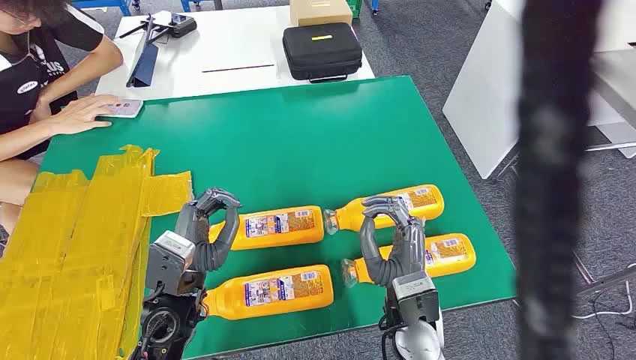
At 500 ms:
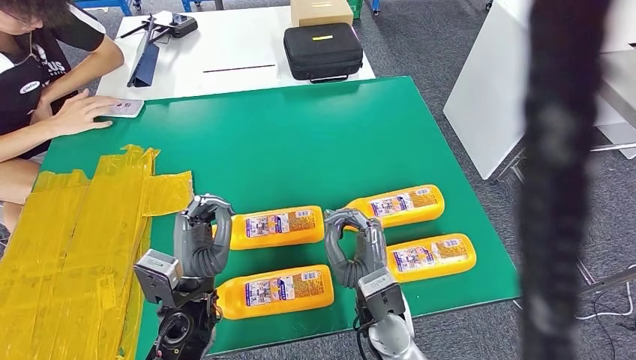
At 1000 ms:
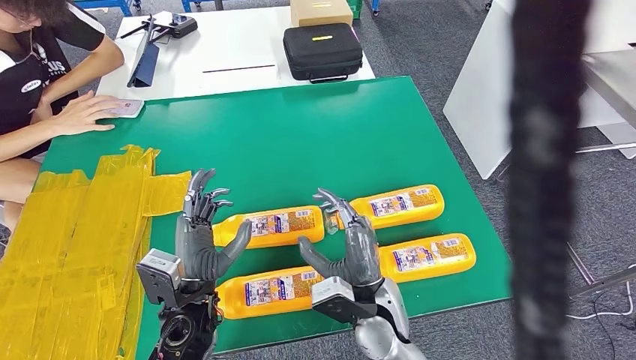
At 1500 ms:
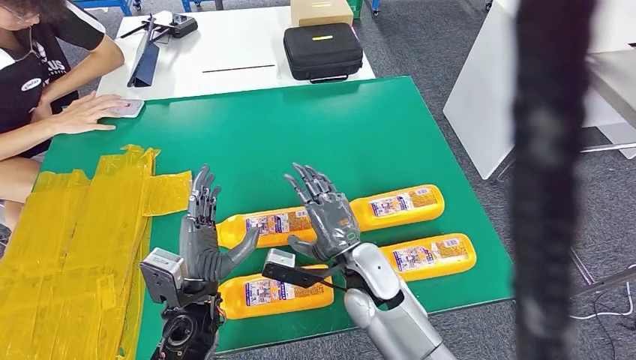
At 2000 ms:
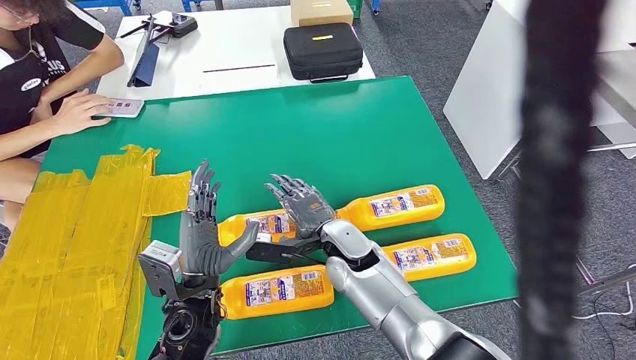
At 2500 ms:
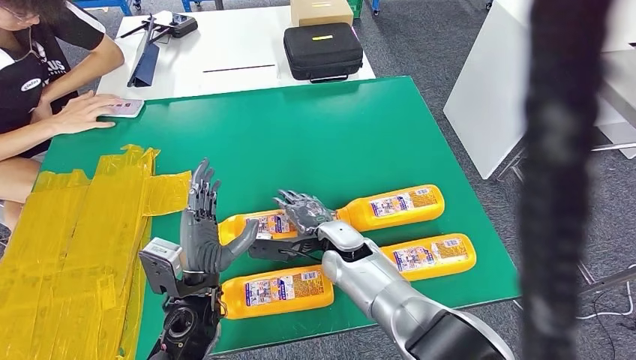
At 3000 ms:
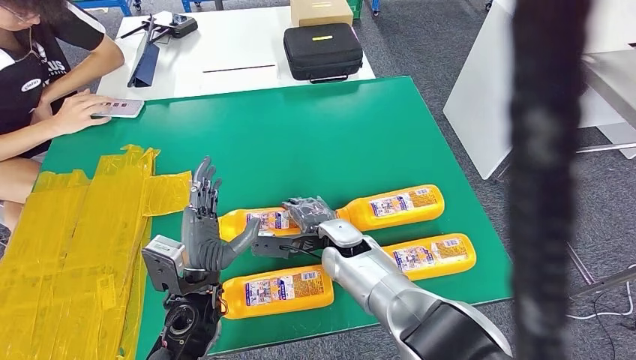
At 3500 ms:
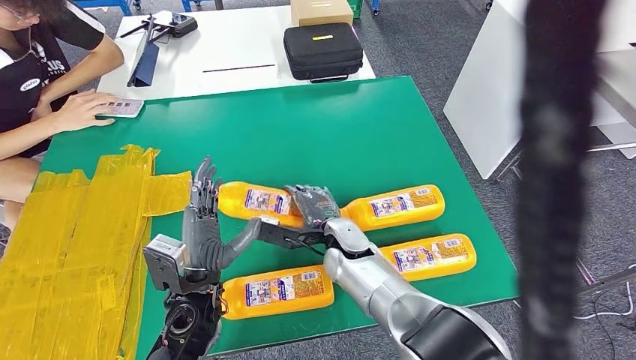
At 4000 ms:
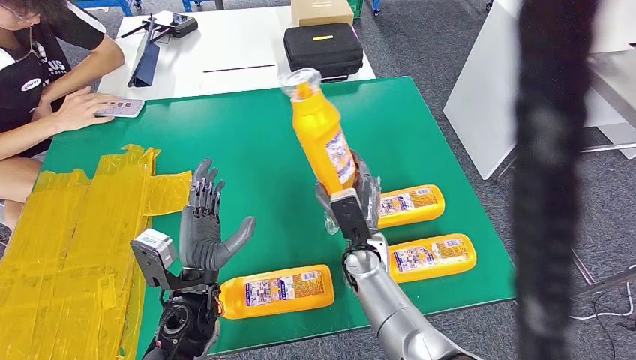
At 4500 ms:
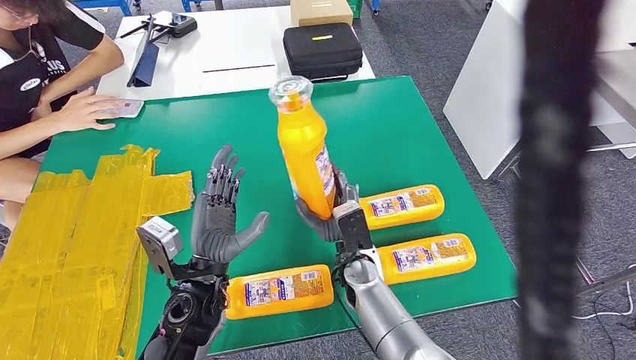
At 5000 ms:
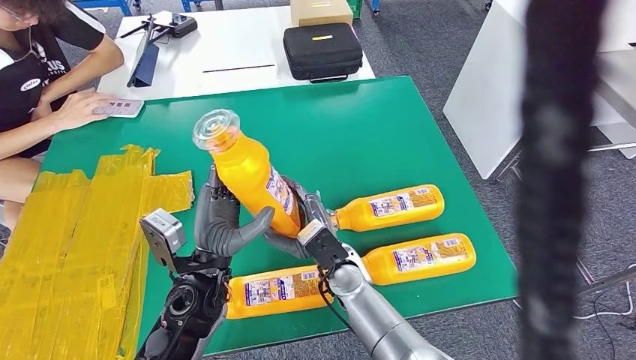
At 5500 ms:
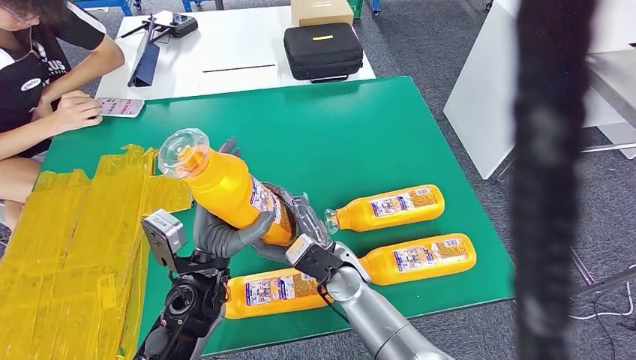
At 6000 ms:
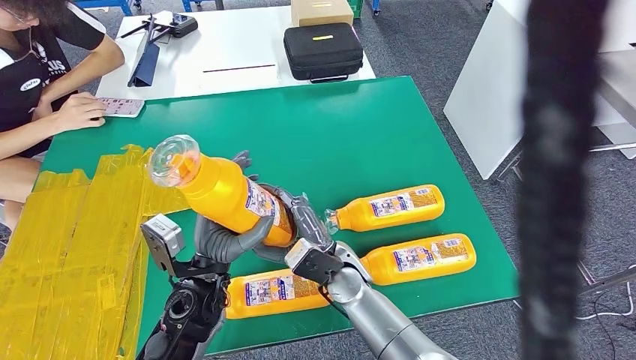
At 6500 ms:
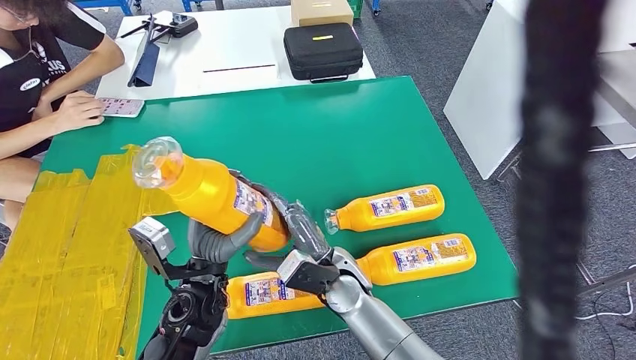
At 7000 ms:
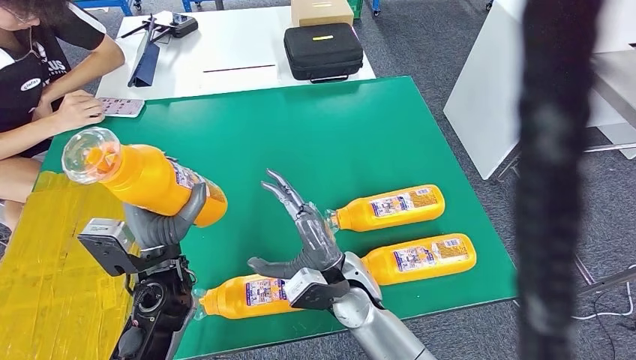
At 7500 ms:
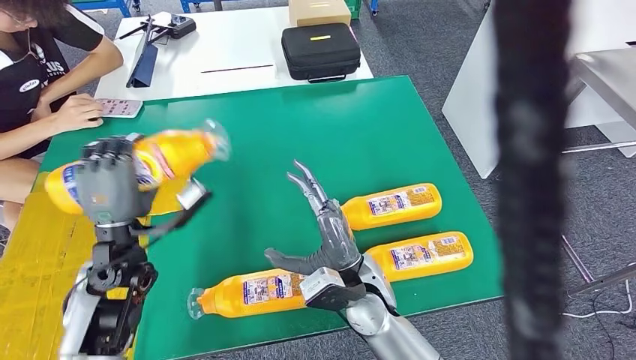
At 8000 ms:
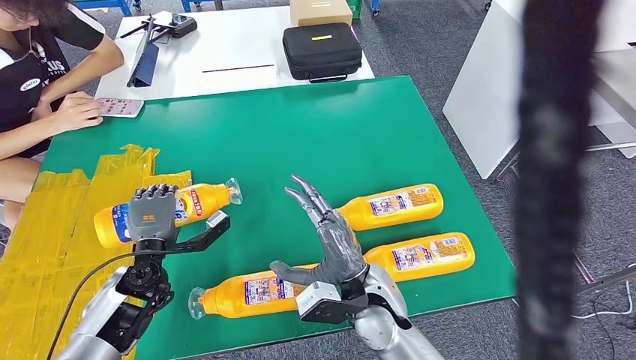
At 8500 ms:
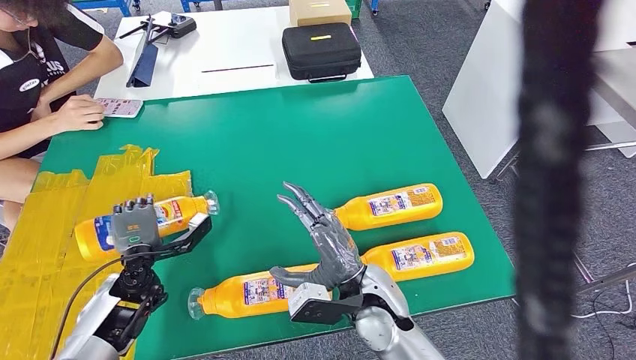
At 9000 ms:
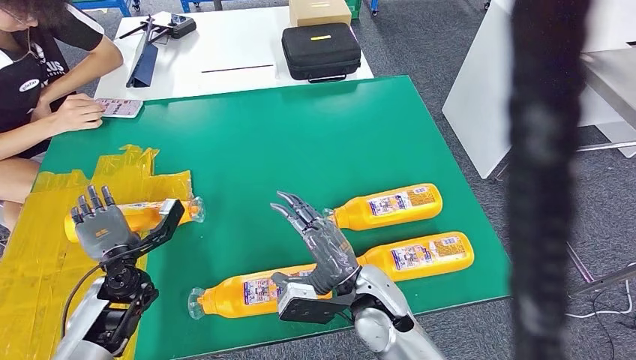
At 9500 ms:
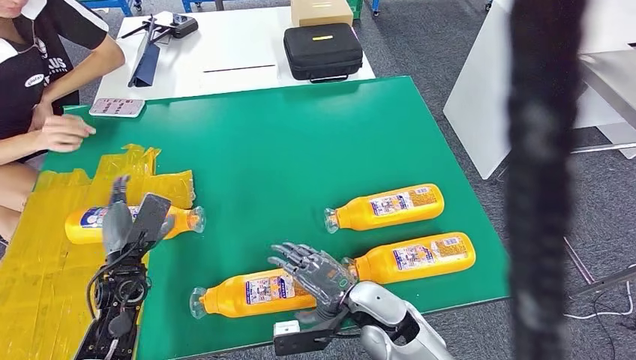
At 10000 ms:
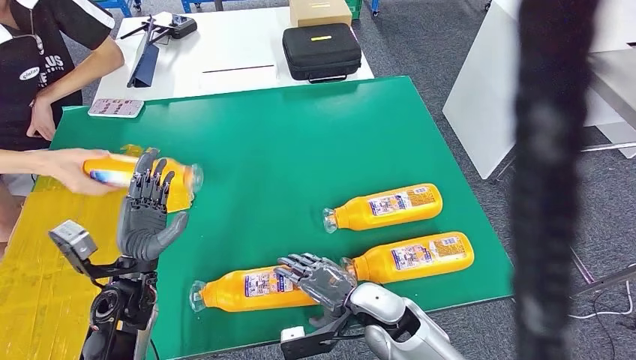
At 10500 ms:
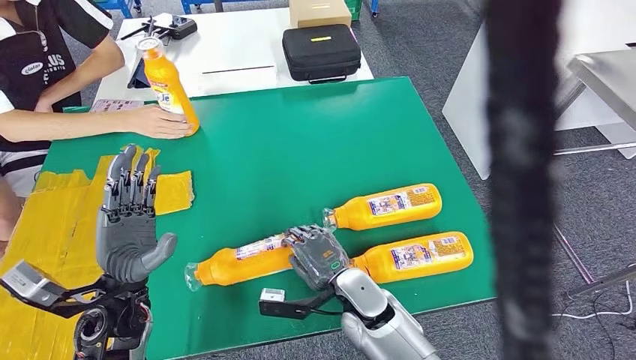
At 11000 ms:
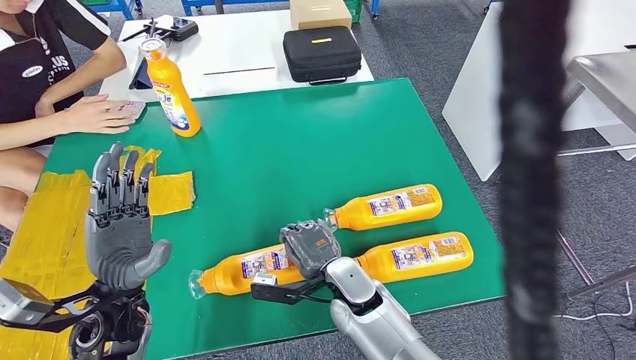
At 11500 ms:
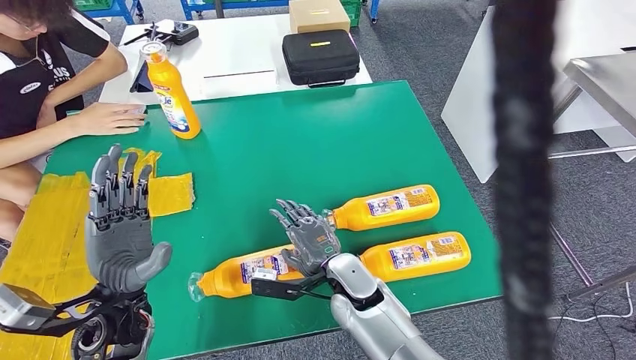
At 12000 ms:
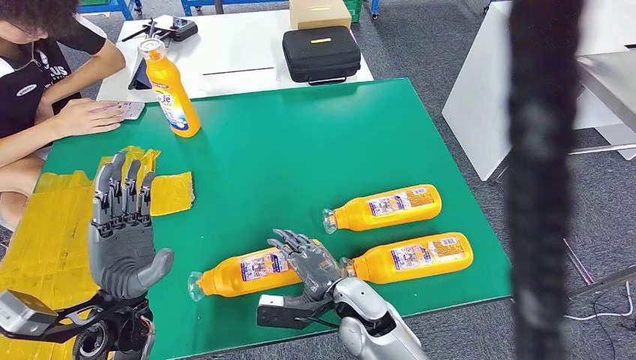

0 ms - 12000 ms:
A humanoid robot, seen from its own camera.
Step, 0 ms - 4000 ms: Take the fast-moving consumer goods bottle from the table.
Step, 4500 ms - 8500 ms: Flip the fast-moving consumer goods bottle to the front side.
2000 ms - 4000 ms: The right hand ends up some 5 cm from where it was.
4000 ms - 6000 ms: The right hand moves to the left, some 5 cm.
6000 ms - 8000 ms: The right hand moves backward, approximately 5 cm; the left hand is displaced to the left, forward and downward by some 15 cm.

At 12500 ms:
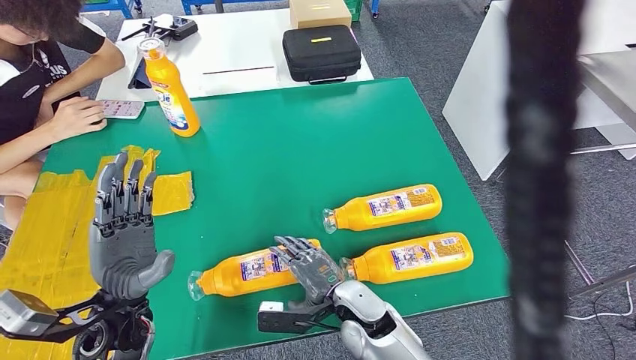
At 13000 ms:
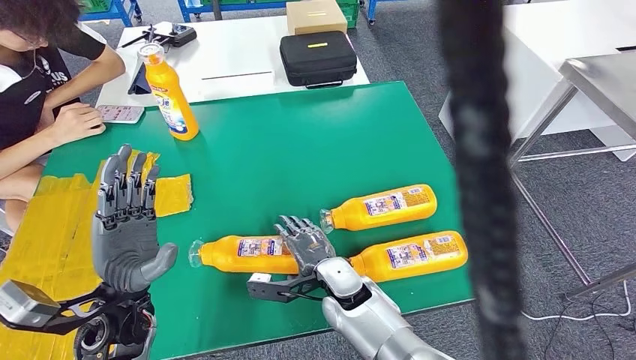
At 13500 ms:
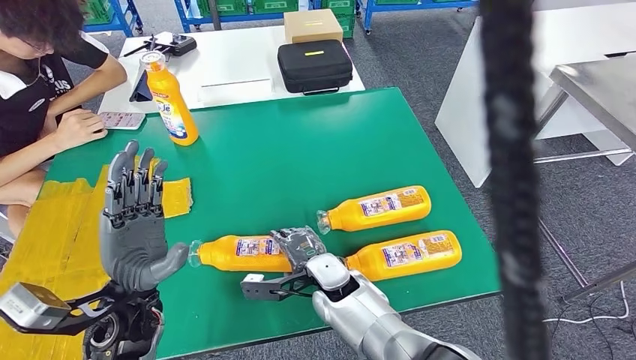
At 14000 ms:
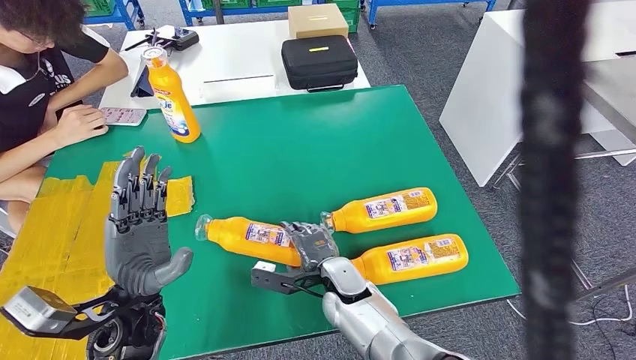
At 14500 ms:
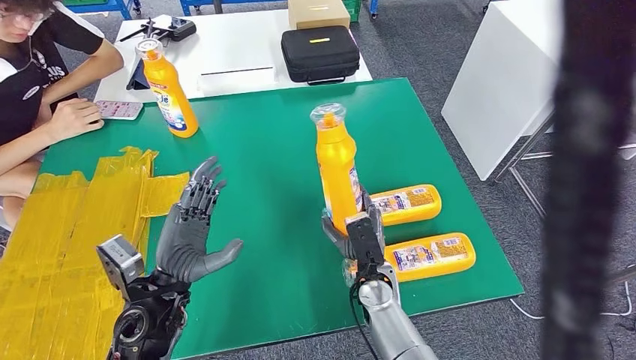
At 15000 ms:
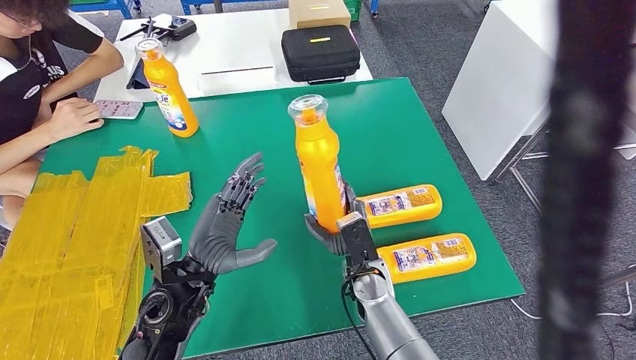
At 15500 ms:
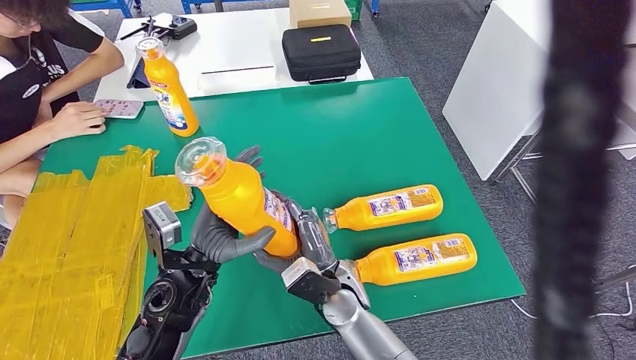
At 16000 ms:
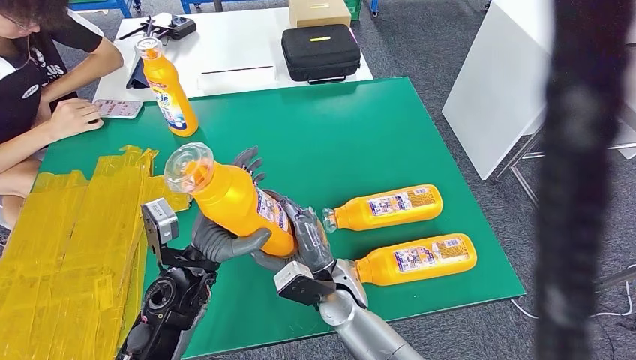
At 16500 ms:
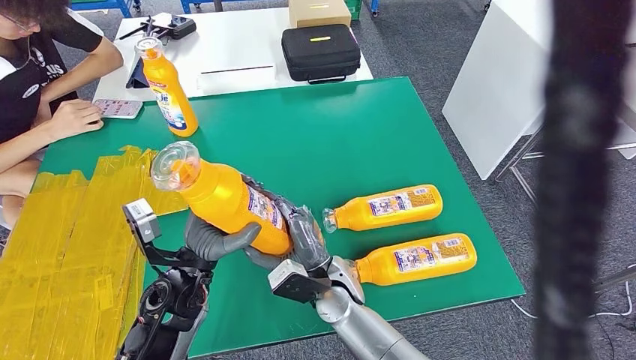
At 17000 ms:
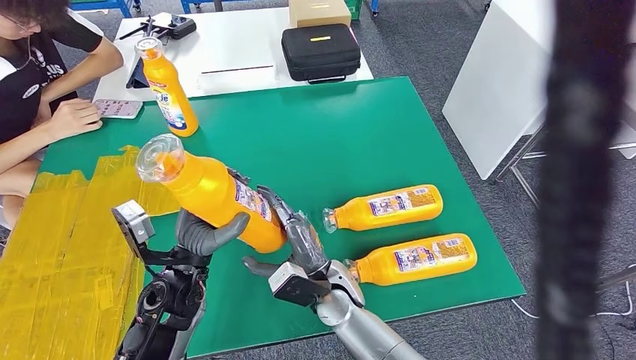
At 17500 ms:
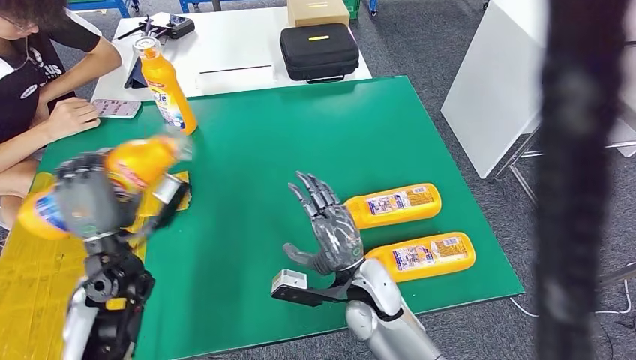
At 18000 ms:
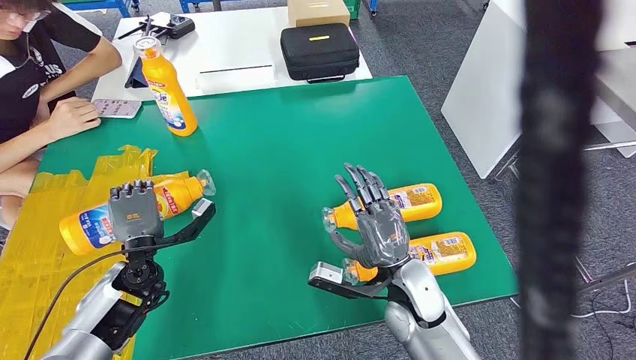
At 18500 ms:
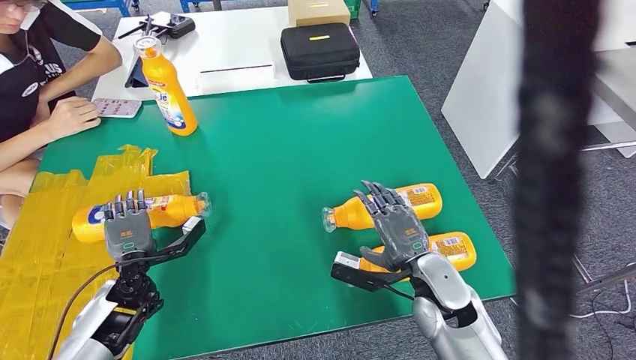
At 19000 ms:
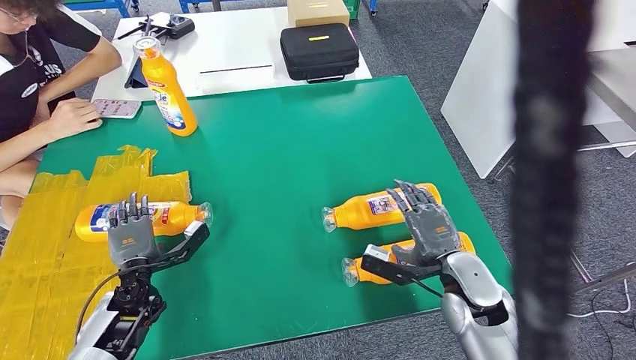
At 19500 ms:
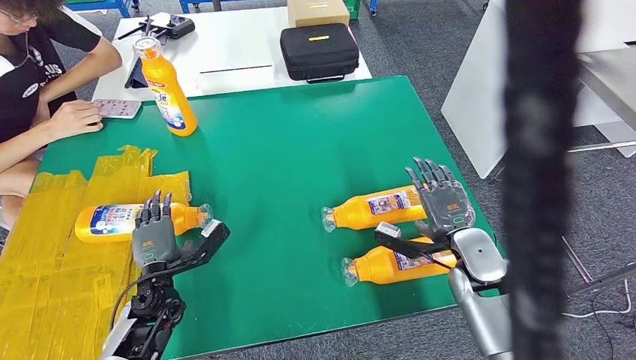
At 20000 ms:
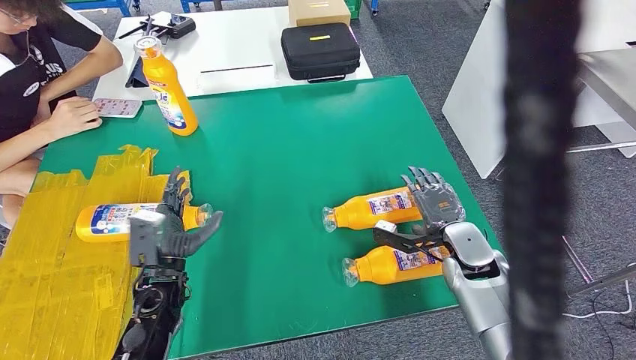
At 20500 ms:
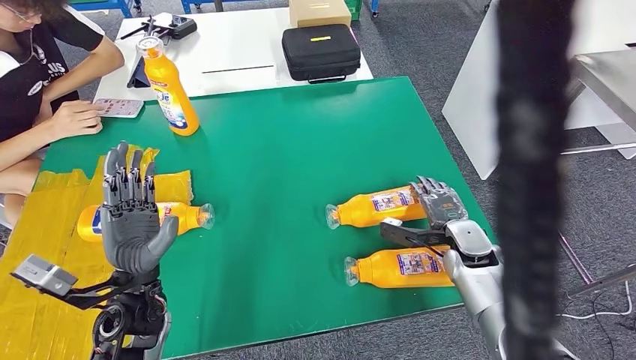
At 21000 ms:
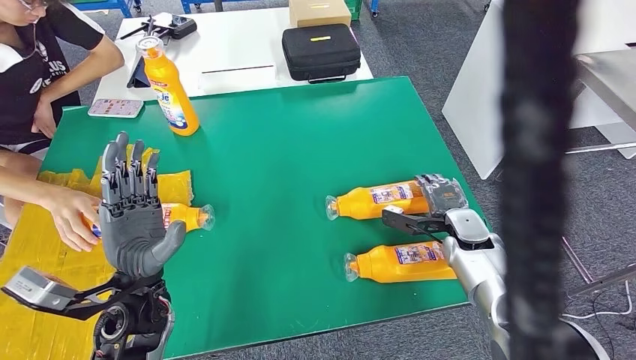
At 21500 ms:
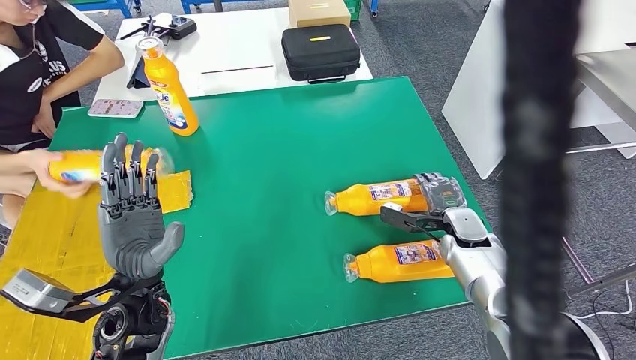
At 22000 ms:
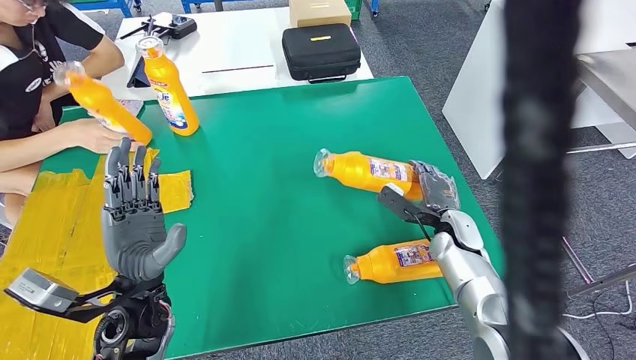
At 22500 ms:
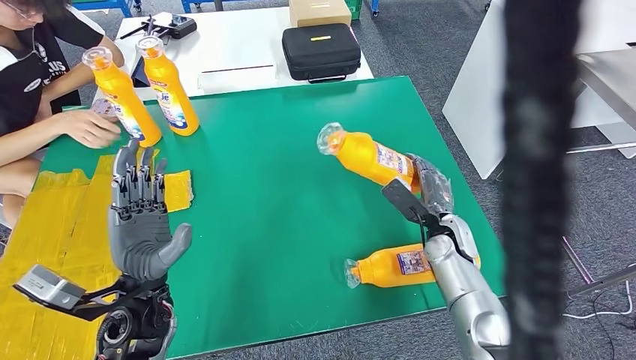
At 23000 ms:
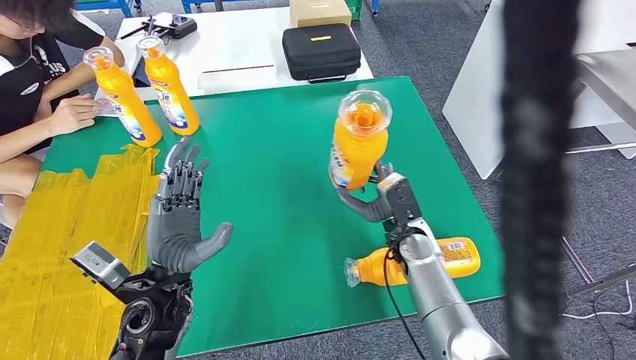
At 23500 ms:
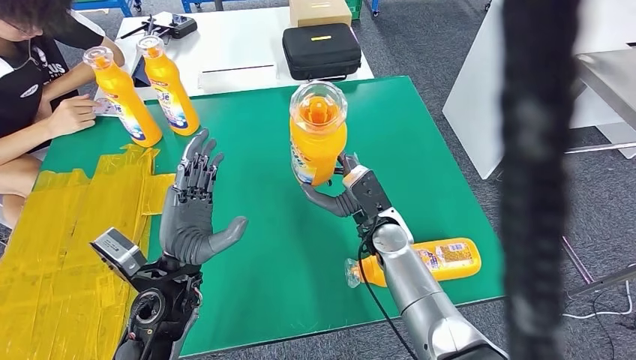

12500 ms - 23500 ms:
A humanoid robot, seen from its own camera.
Step, 12500 ms - 16000 ms: Pick up the fast-moving consumer goods bottle from the table.
Step, 16500 ms - 18500 ms: Flip the fast-moving consumer goods bottle to the front side.
Step, 19000 ms - 23500 ms: Pick up the fast-moving consumer goods bottle from the table.
